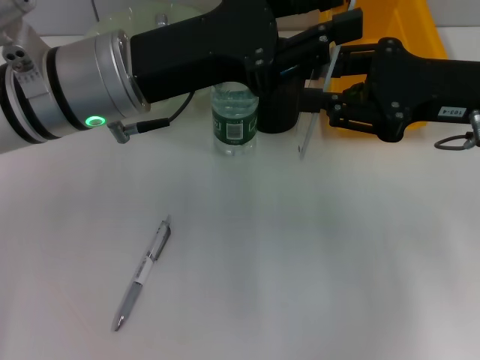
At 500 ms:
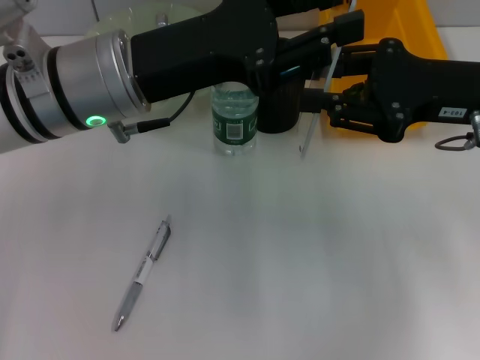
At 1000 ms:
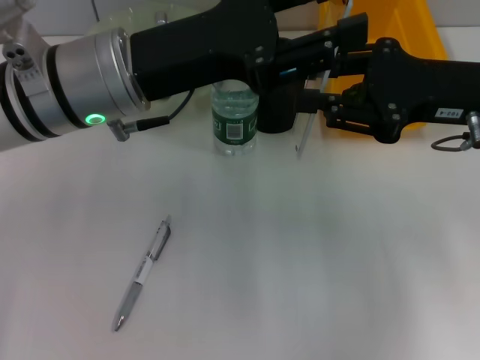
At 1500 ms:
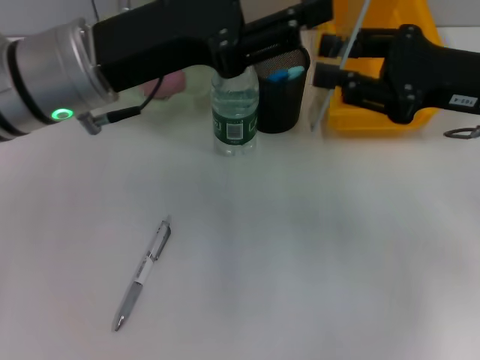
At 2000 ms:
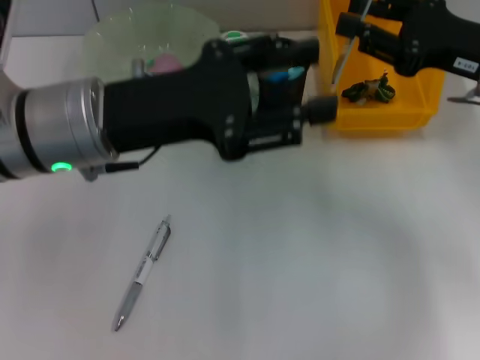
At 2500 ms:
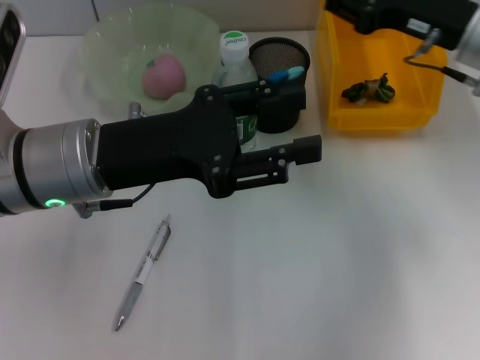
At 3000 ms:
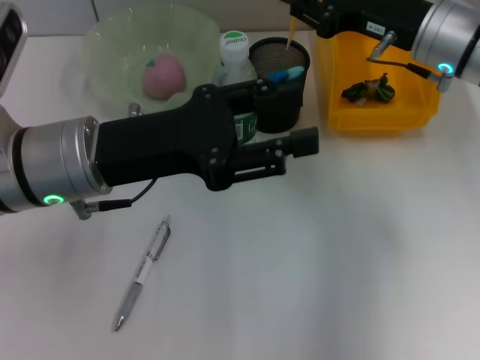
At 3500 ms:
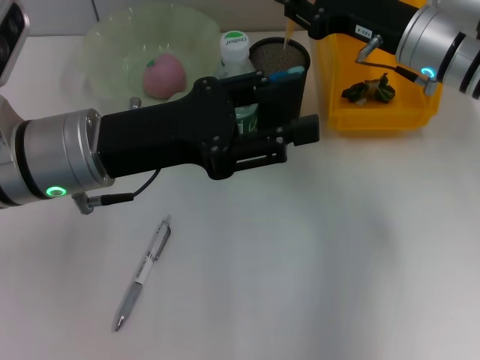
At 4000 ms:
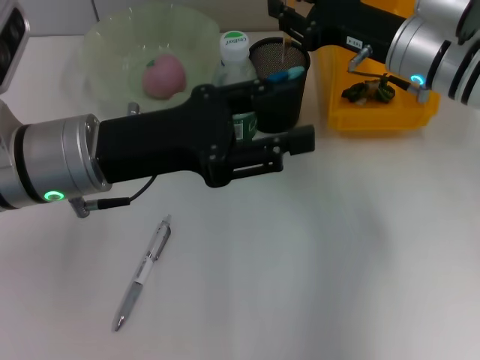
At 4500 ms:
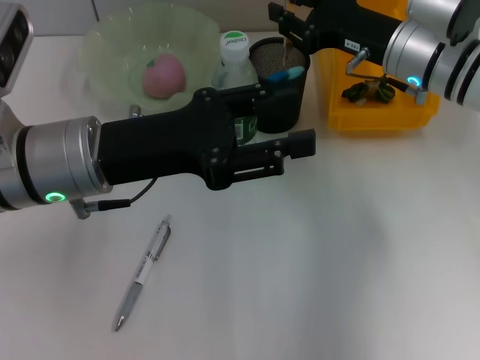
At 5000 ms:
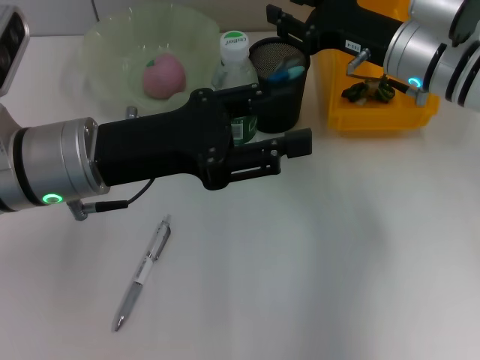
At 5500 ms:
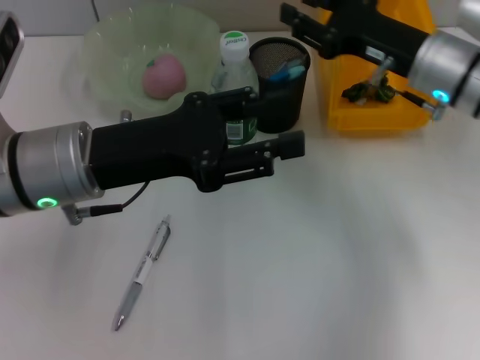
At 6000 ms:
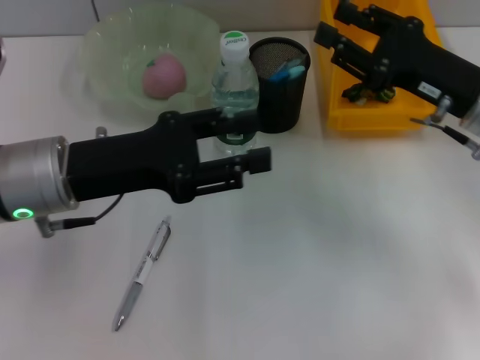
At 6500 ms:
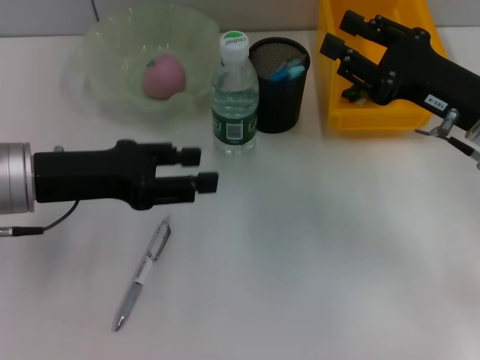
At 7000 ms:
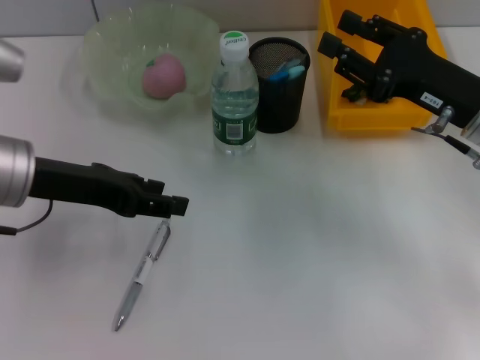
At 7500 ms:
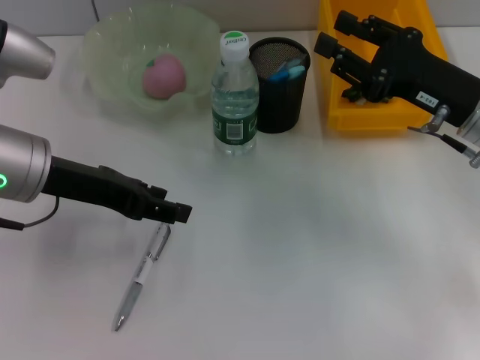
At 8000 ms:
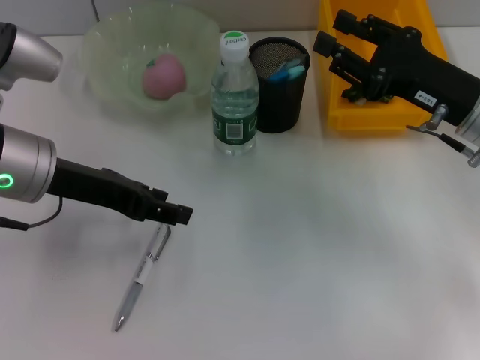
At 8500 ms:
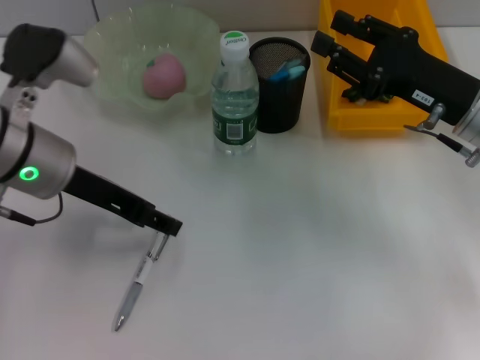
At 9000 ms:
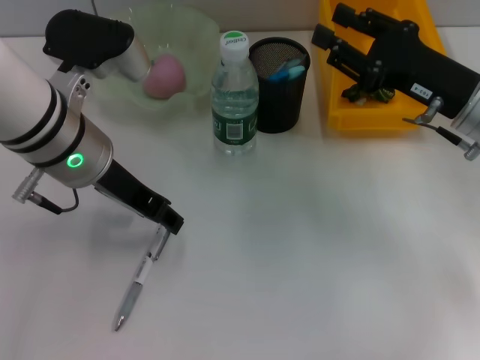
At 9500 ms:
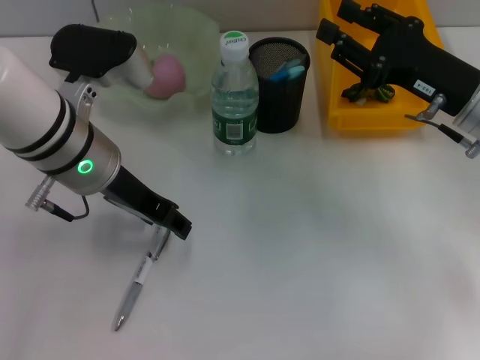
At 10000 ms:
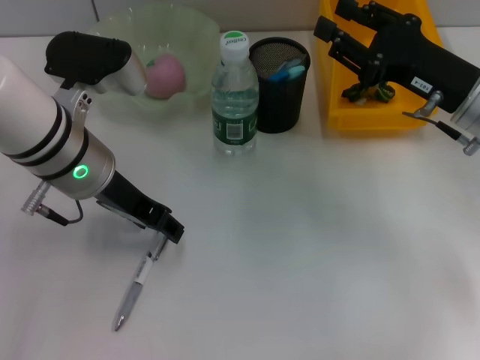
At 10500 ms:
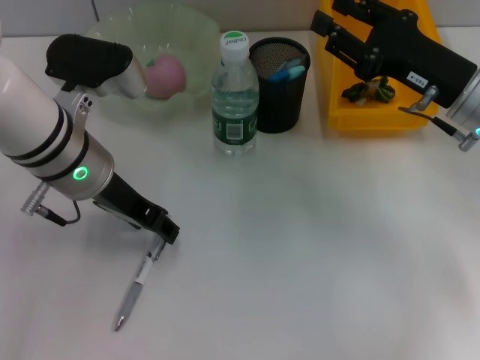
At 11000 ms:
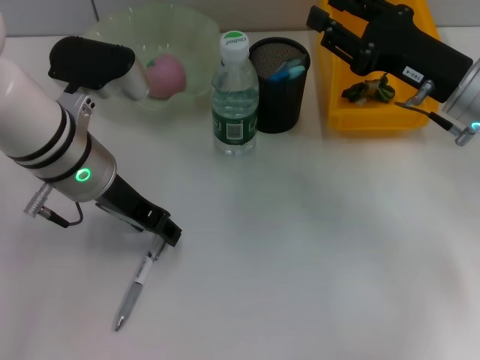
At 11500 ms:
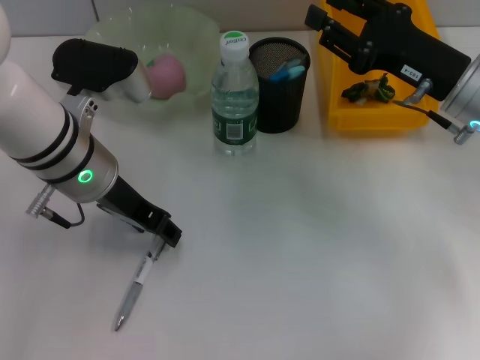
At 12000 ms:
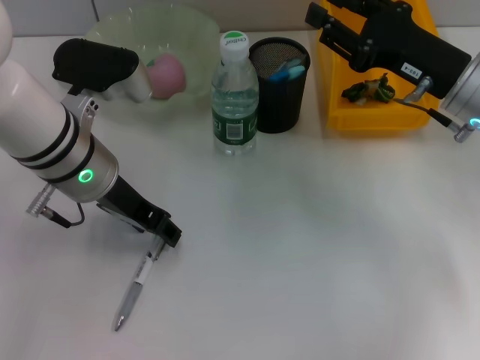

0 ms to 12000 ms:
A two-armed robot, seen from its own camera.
Step, 1500 ms to 5500 ms: Place the ruler into the pen holder with the right hand.
2000 ms to 4000 ms: The right gripper shifts some 10 cm to the left and forward.
4000 ms to 6000 ms: The right gripper goes some 10 cm backward and to the right.
8000 ms to 10000 ms: The left gripper moves to the right, some 5 cm.
10000 ms to 12000 ms: The grippers make only small movements.

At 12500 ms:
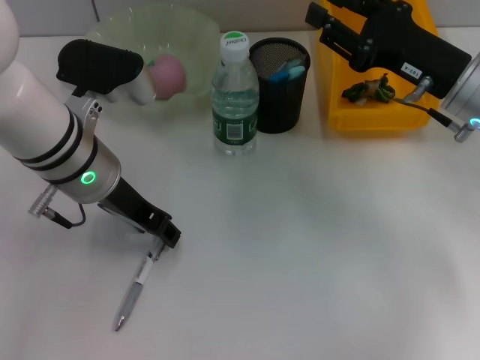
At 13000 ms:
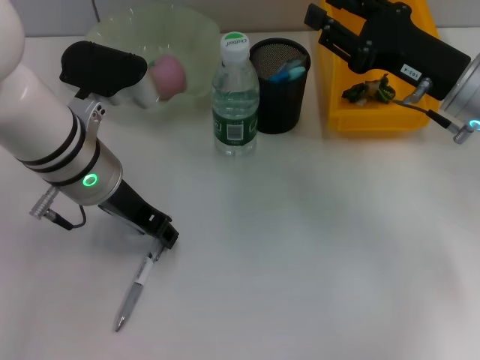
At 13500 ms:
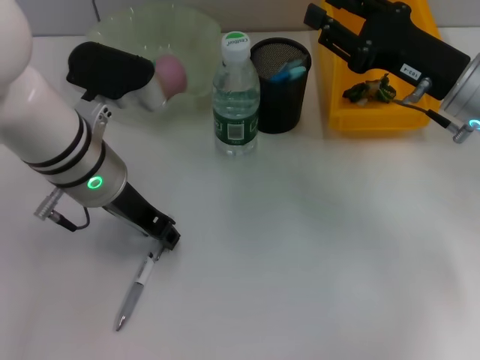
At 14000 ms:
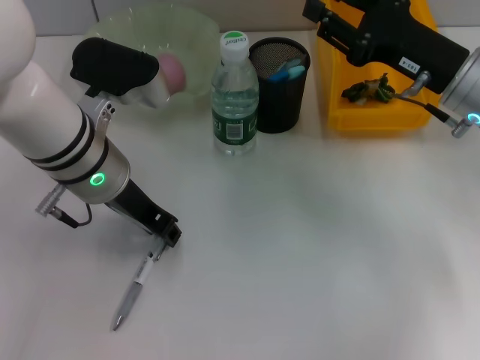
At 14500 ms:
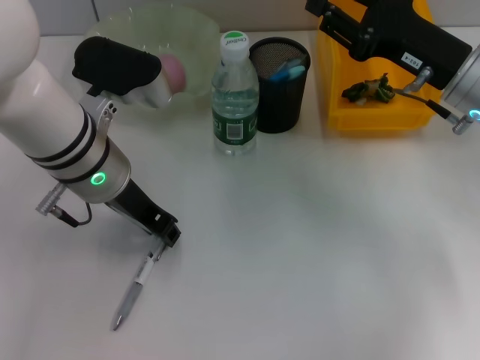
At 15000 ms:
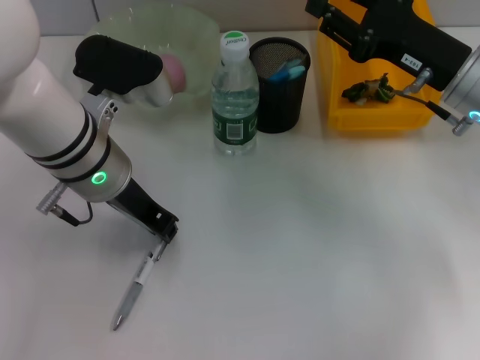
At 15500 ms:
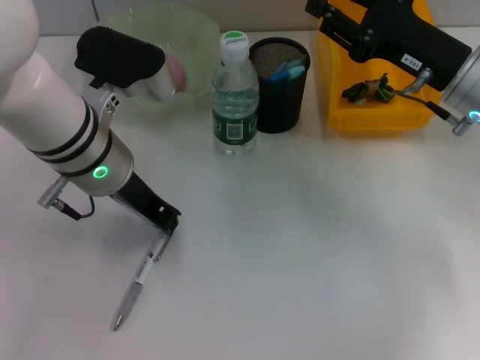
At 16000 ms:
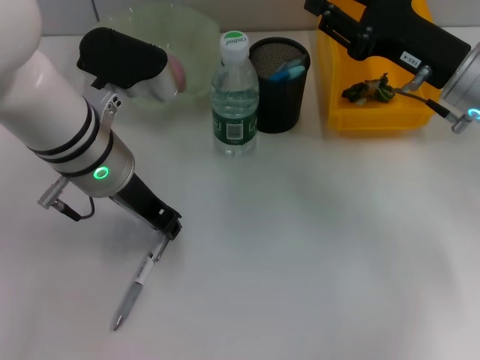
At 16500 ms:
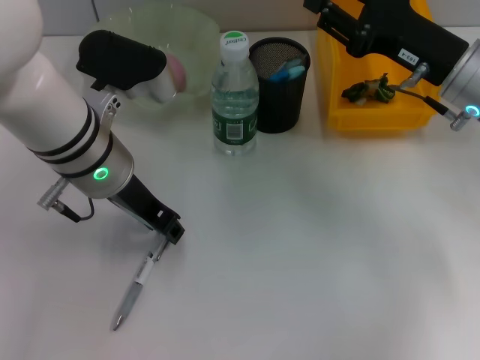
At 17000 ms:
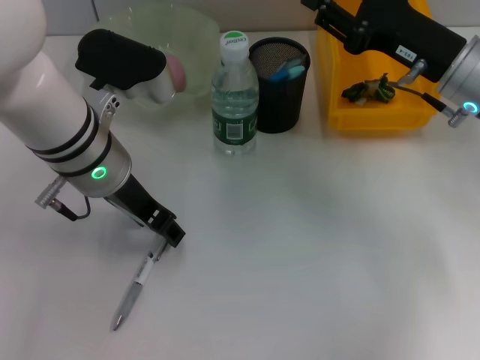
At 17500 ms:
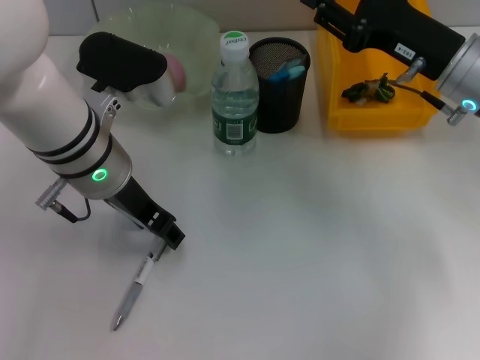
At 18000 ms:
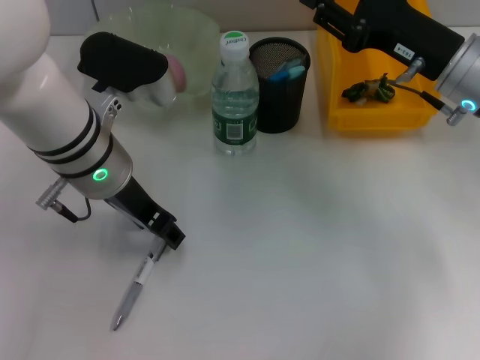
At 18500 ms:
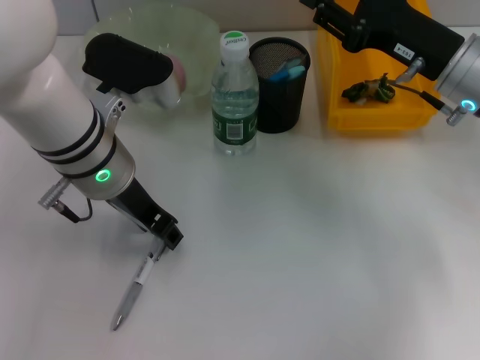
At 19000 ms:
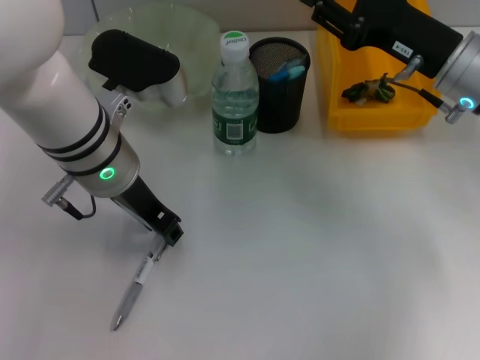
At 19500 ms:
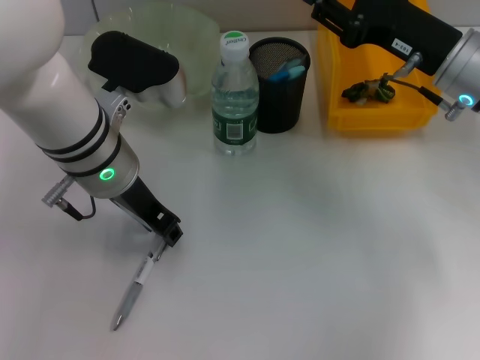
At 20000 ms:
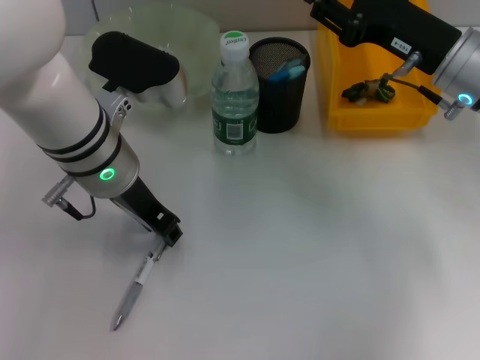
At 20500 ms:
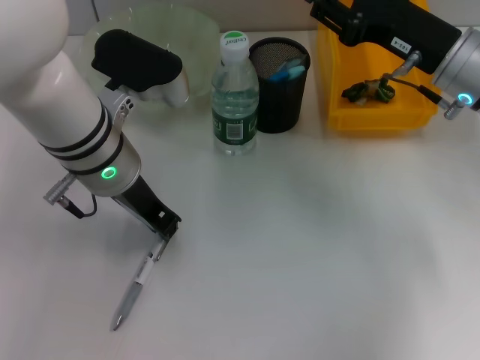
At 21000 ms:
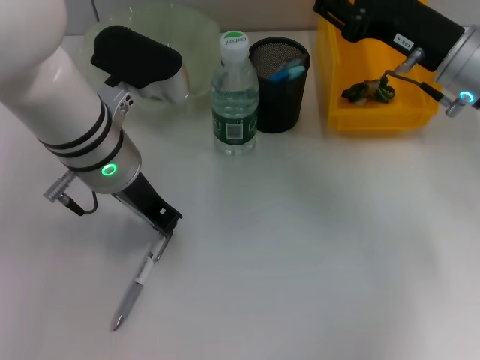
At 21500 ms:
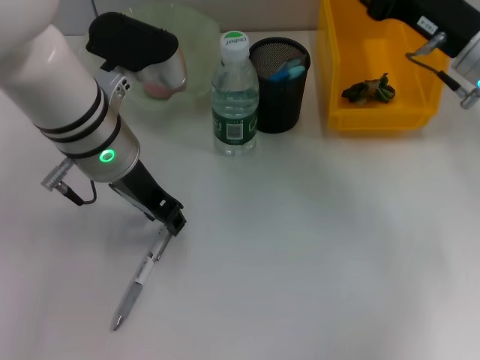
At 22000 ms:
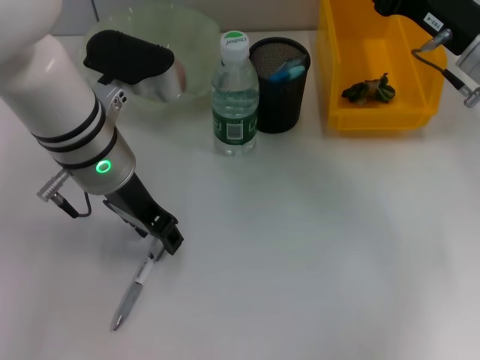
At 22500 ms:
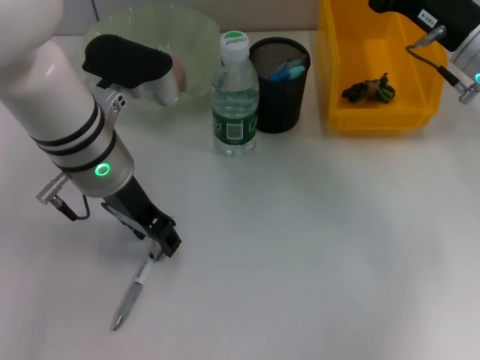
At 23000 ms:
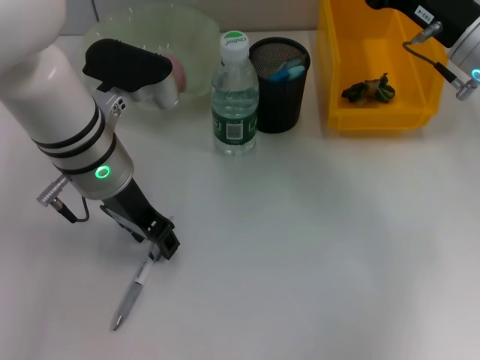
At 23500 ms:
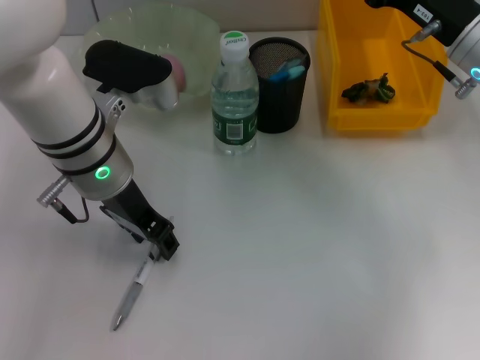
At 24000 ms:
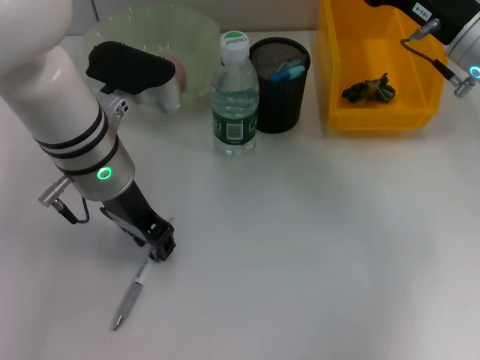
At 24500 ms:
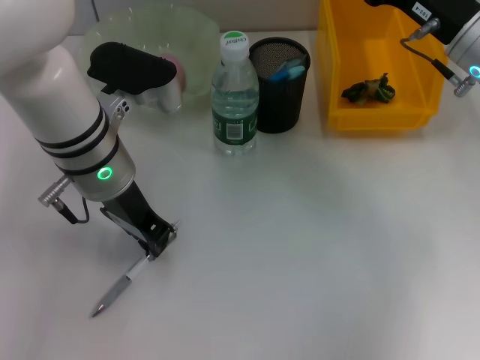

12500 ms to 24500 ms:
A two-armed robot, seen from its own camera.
12500 ms to 14500 ms: The two grippers keep their place.
14500 ms to 18500 ms: Both grippers stay about where they are.
18500 ms to 20500 ms: The left gripper closes.
20500 ms to 22500 ms: The left gripper opens its fingers.
22500 ms to 24500 ms: The left gripper closes up.

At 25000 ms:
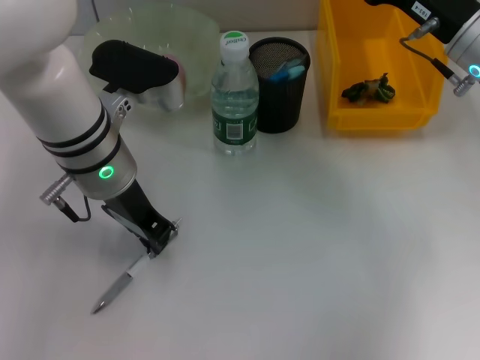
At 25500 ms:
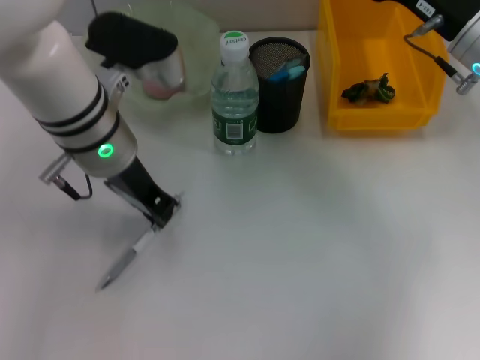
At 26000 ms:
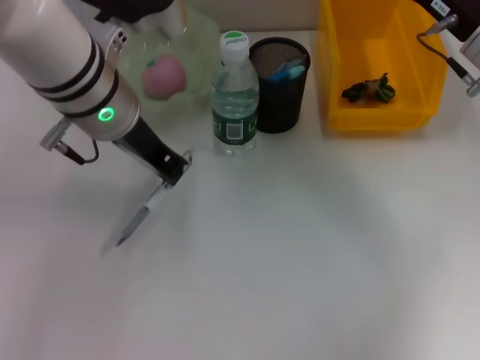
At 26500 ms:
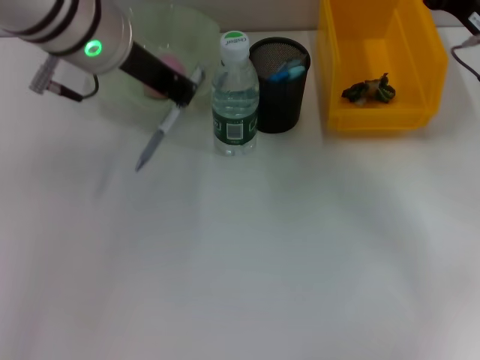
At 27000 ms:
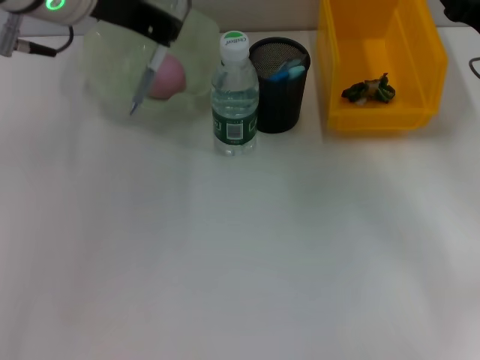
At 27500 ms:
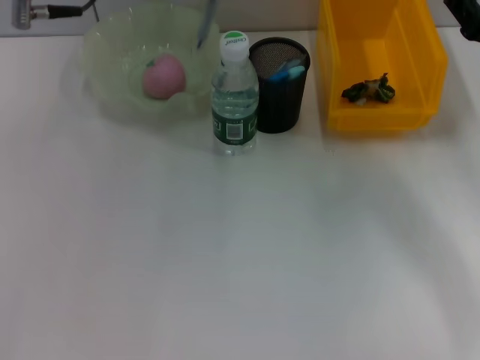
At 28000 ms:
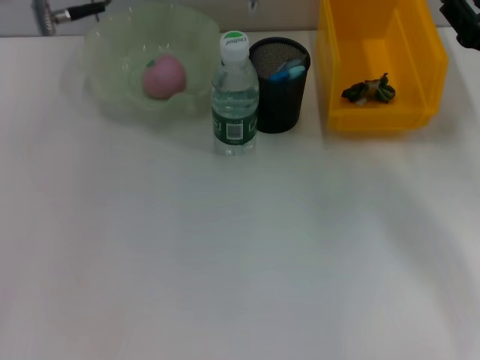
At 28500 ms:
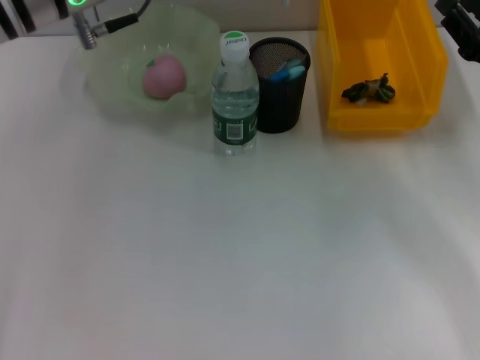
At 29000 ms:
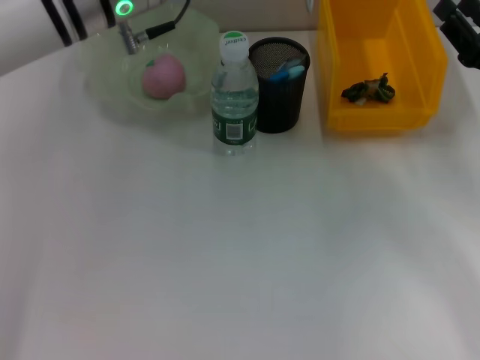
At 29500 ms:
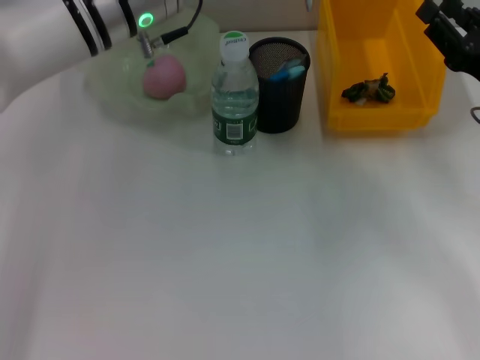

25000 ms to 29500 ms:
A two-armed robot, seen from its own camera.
25000 ms to 27000 ms: The right gripper shifts about 5 cm to the right; the left gripper shifts about 15 cm upward.
27000 ms to 29500 ms: The left gripper shifts approximately 10 cm downward.
